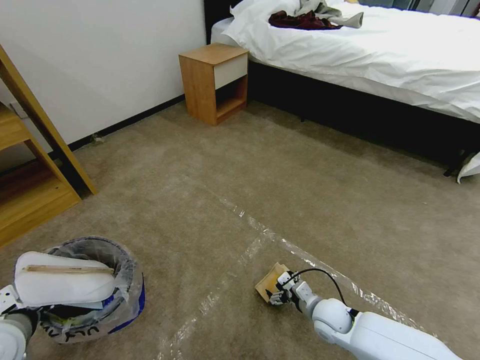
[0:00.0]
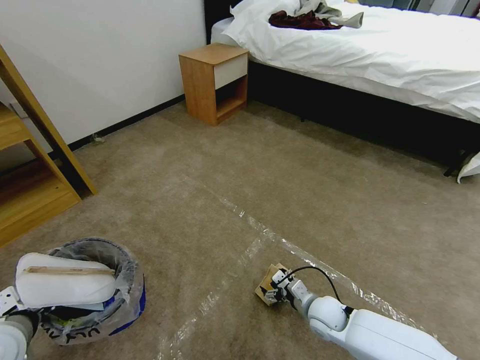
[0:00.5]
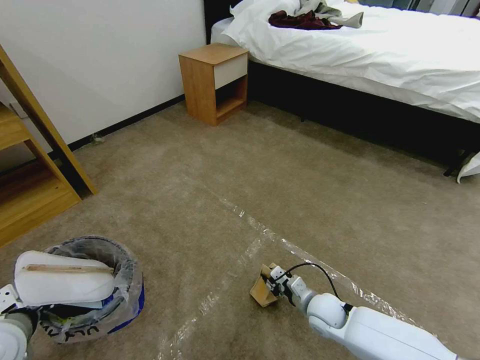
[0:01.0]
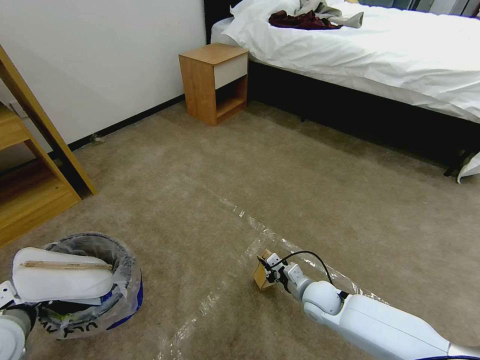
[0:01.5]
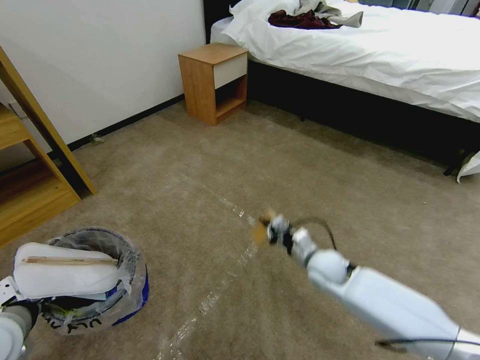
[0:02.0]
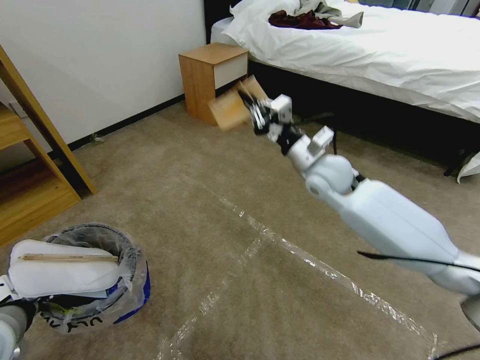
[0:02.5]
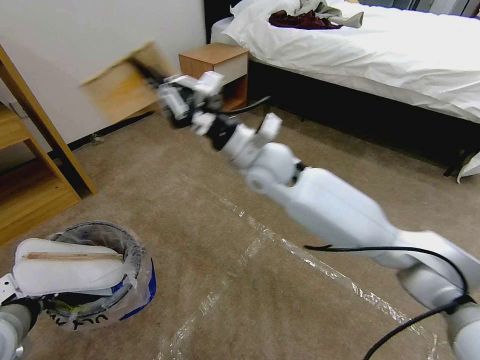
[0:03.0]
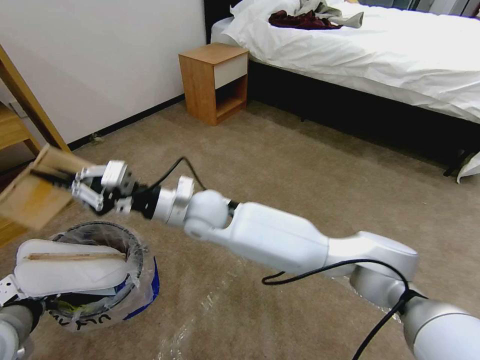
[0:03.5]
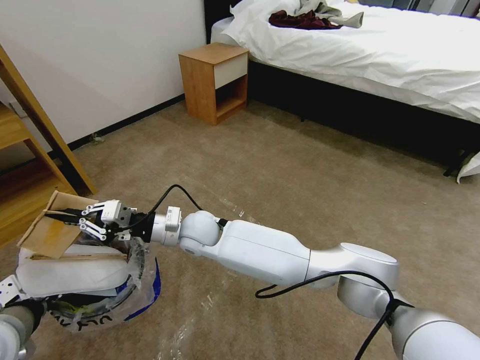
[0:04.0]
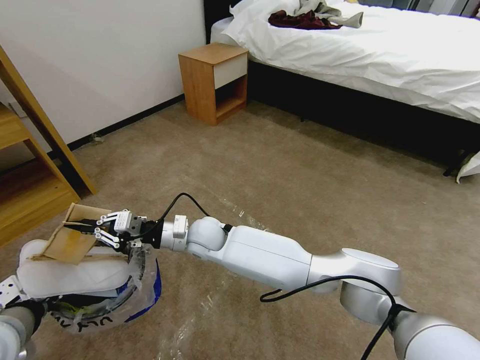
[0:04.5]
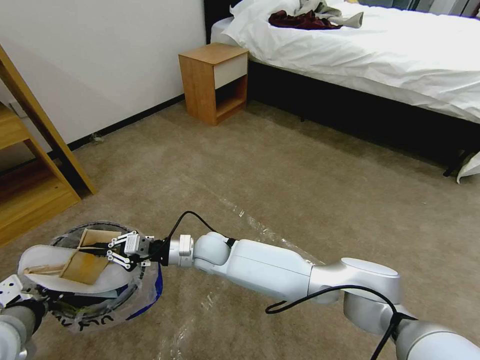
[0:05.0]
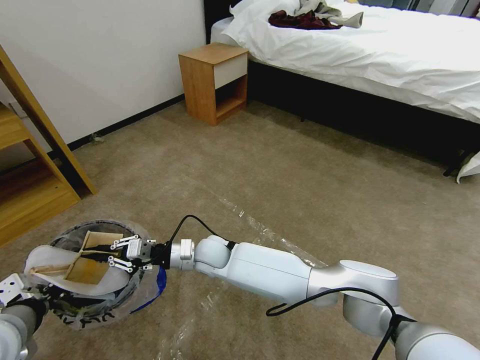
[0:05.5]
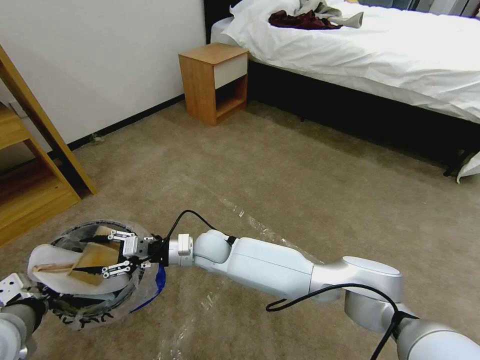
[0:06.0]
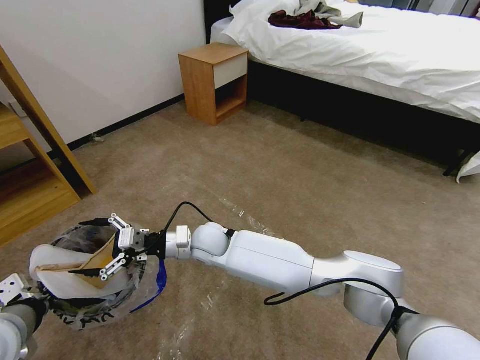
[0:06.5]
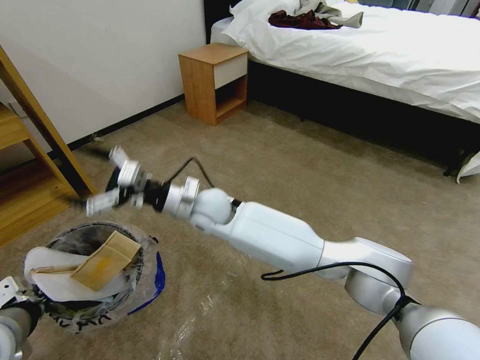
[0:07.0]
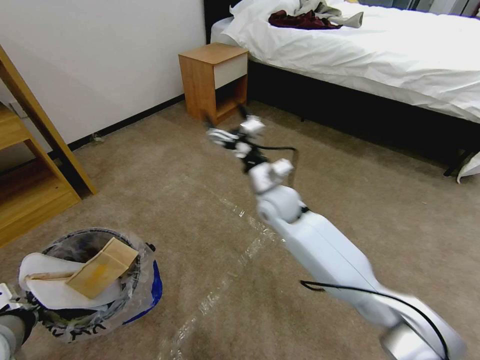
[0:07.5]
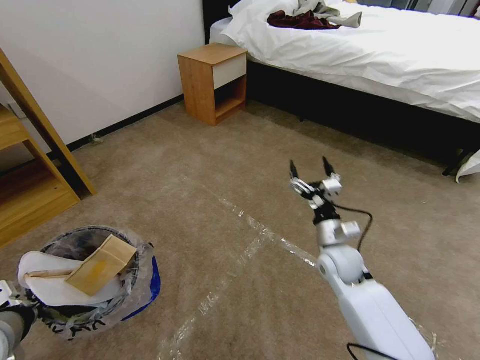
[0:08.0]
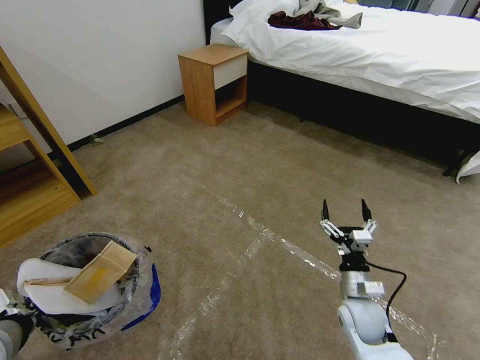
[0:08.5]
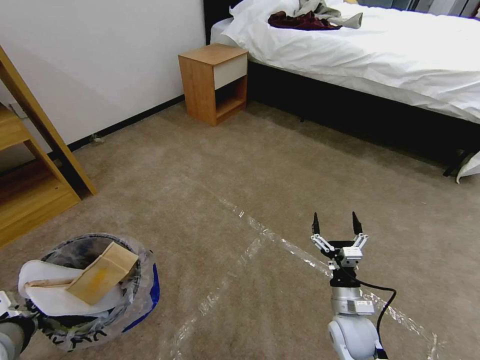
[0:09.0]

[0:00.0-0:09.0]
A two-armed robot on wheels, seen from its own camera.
Task of the whole recording: Pick up the trash bin and place the garbage on the floor into it.
0:00.0 to 0:02.0: The right gripper shifts about 15 cm upward and forward, and closes up.
0:02.0 to 0:04.5: The right gripper travels to the left by some 30 cm.
0:04.5 to 0:07.0: The right gripper goes roughly 10 cm upward, and opens.
0:07.0 to 0:09.0: The right gripper travels to the right, downward and backward by approximately 40 cm.
